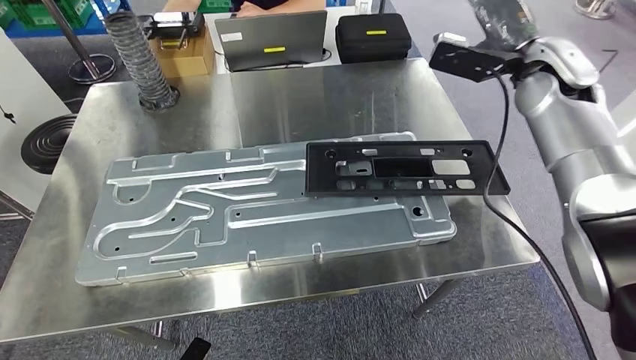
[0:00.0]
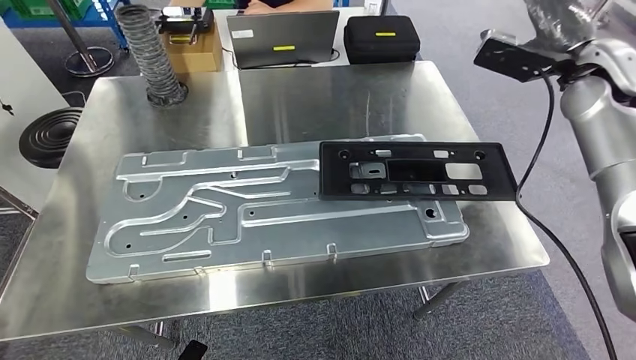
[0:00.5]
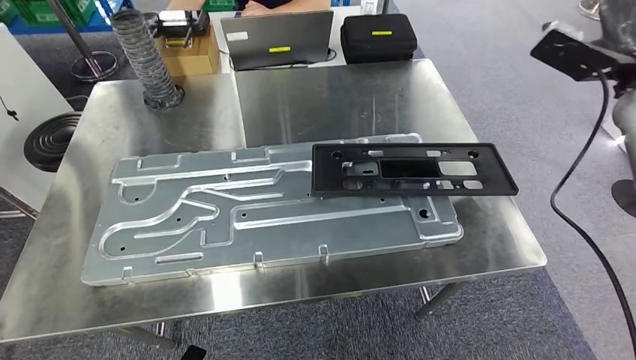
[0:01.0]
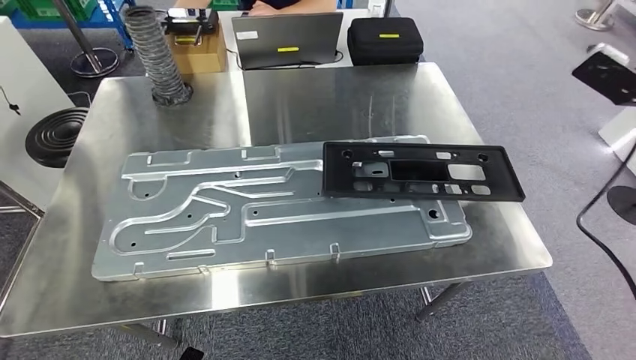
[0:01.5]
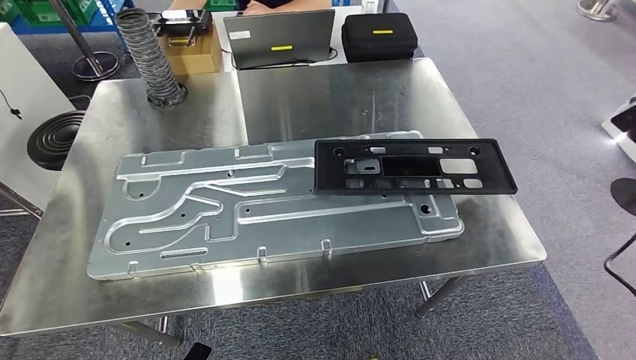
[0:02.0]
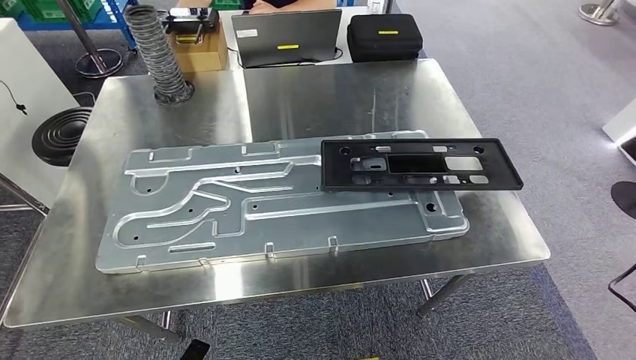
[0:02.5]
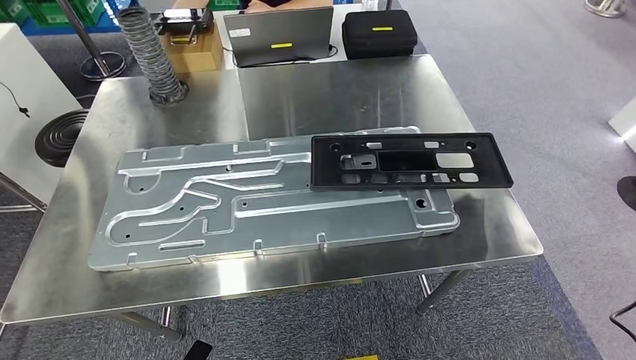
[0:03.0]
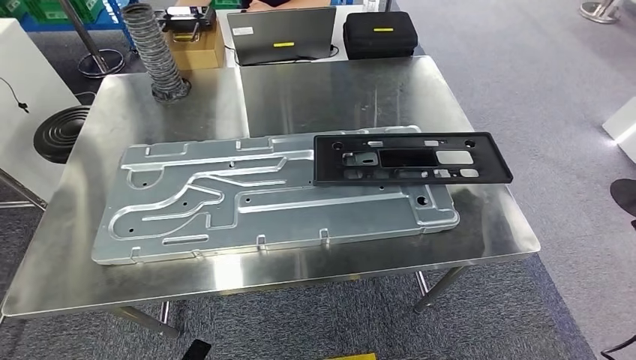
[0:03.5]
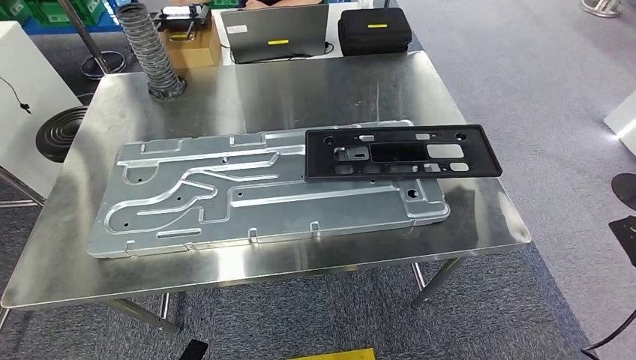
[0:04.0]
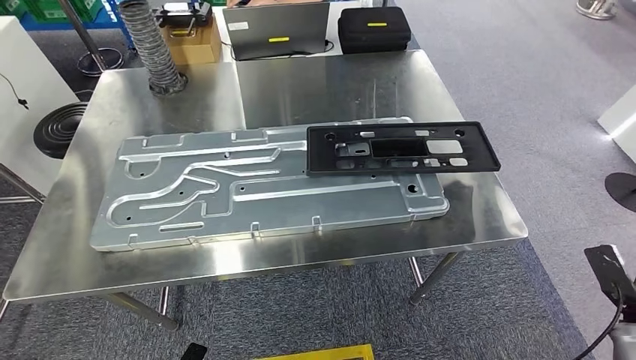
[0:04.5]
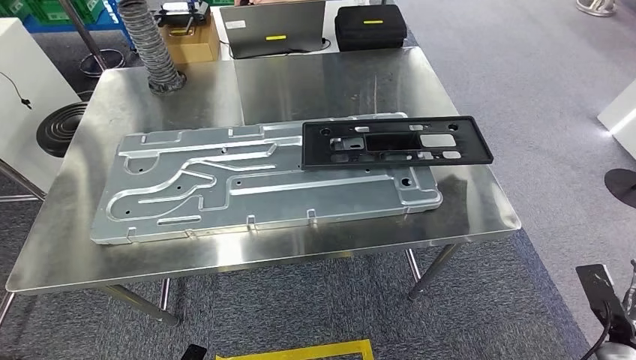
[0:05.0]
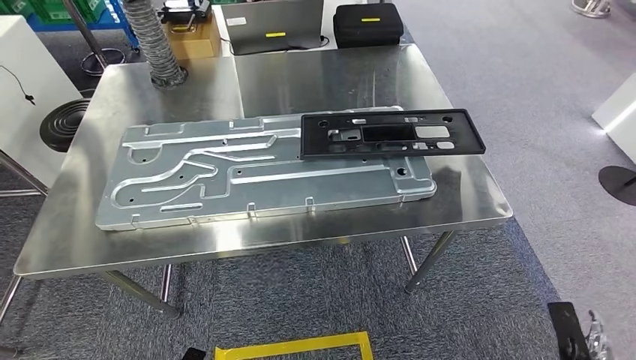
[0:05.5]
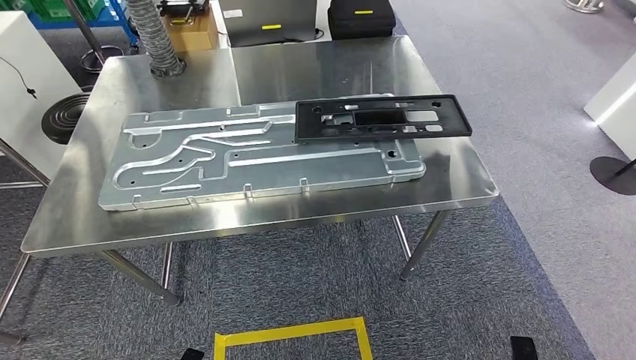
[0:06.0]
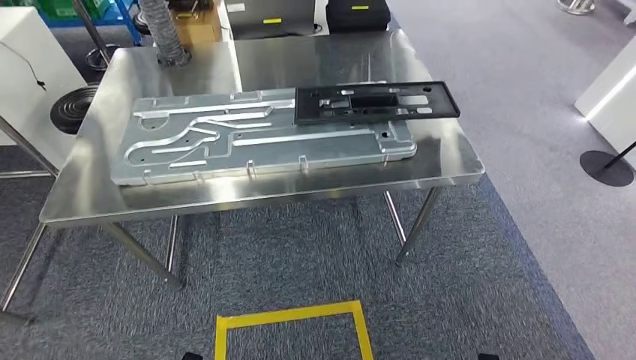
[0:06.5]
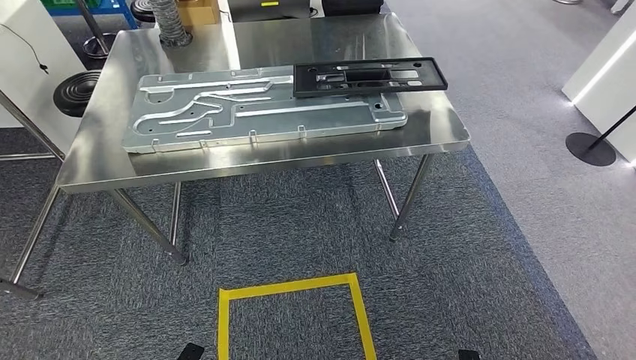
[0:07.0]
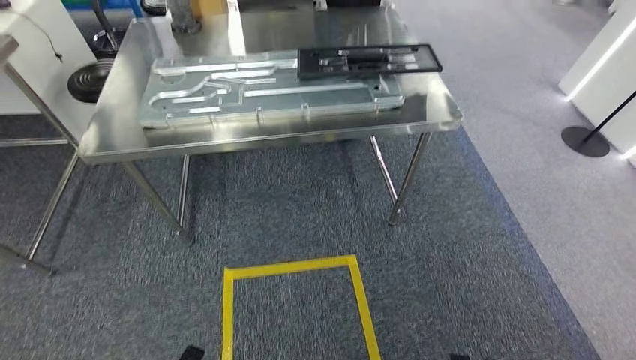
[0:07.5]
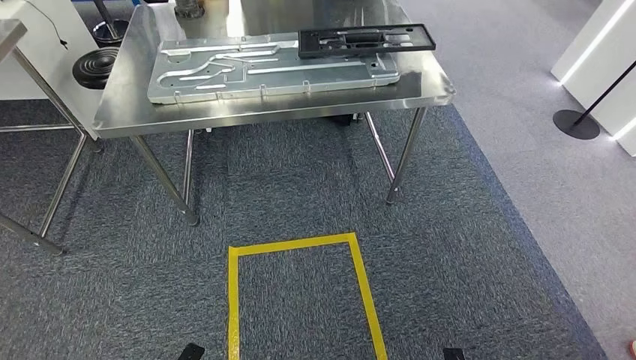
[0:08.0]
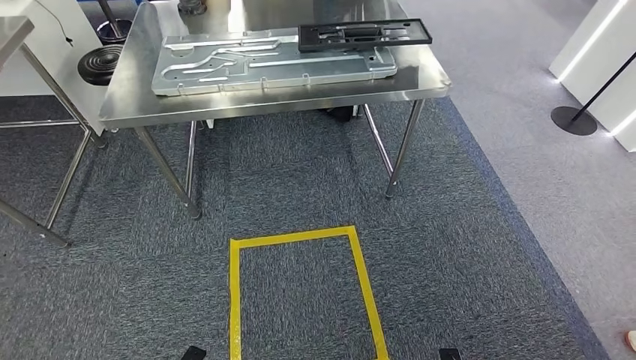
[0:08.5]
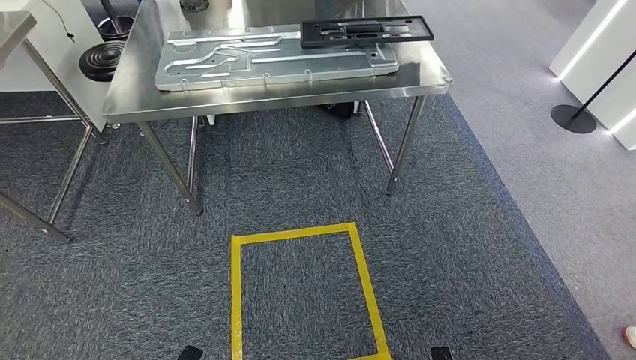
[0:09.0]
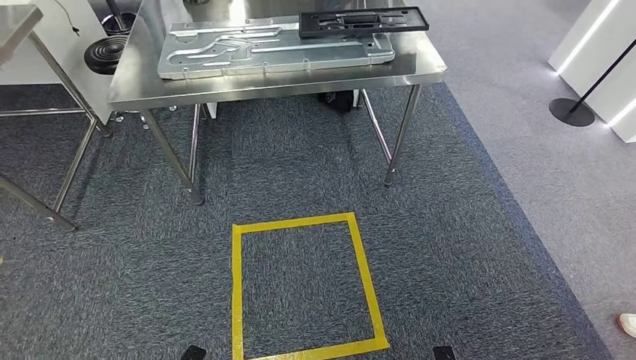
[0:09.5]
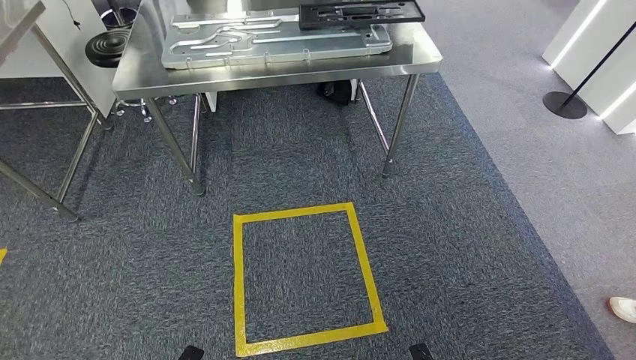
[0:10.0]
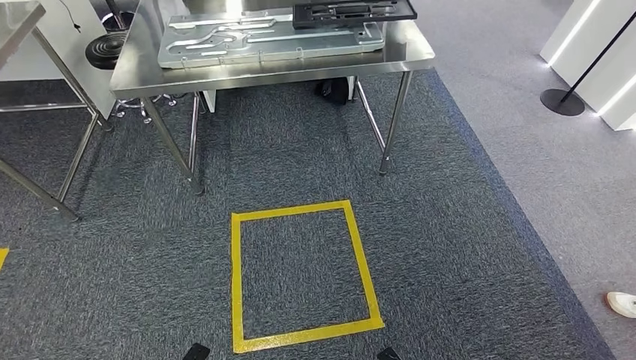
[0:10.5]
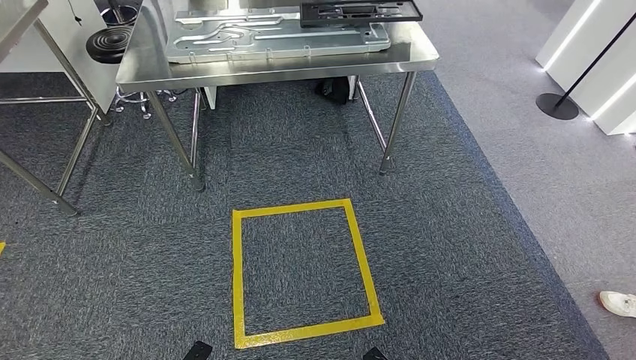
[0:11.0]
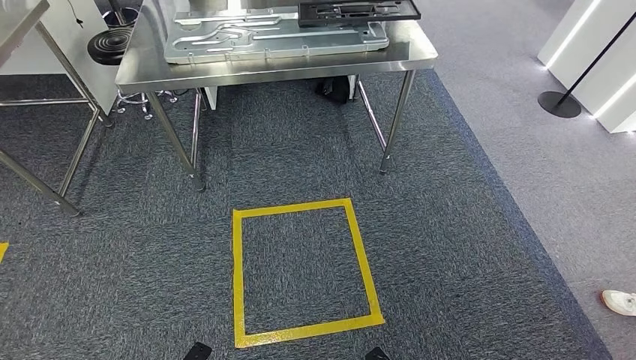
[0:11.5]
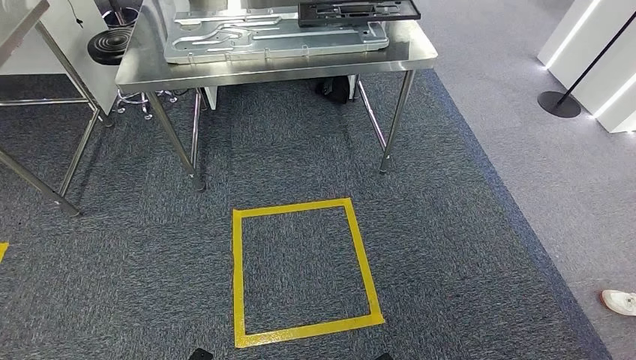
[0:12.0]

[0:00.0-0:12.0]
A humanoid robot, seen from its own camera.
Step, 0:00.0 to 0:02.0: Insert the large material into the corresponding slot on the workbench.
Step, 0:02.5 to 0:12.0: Move to the initial position of the shelf.
